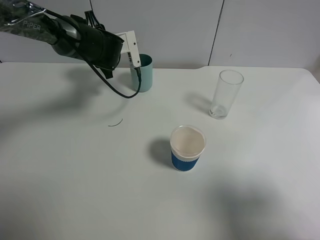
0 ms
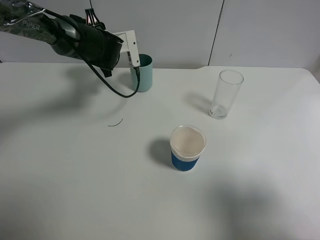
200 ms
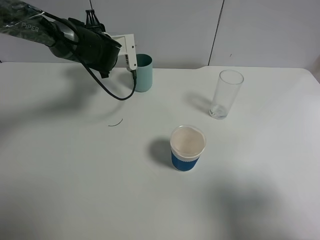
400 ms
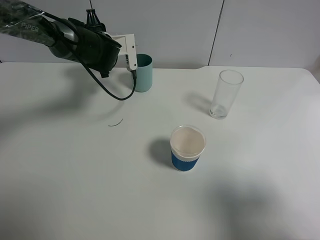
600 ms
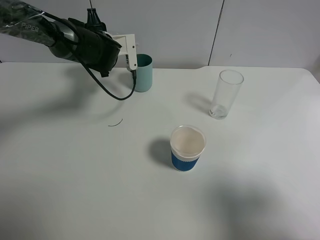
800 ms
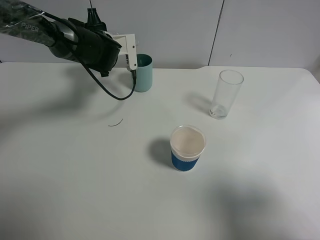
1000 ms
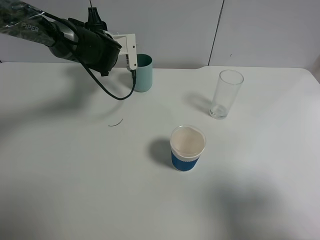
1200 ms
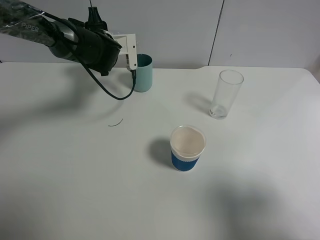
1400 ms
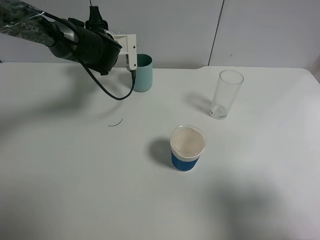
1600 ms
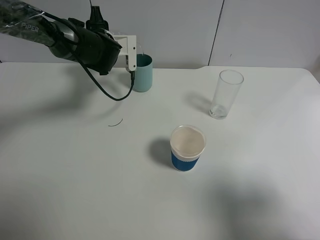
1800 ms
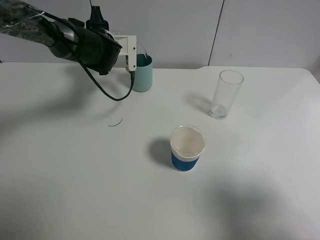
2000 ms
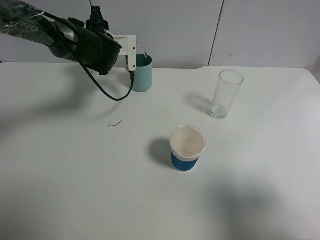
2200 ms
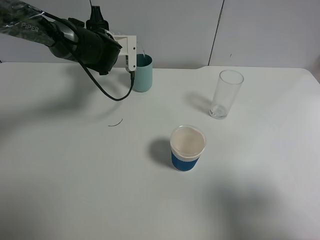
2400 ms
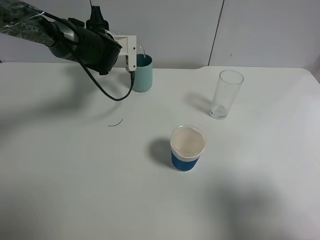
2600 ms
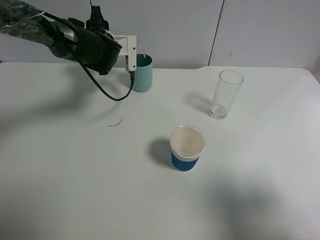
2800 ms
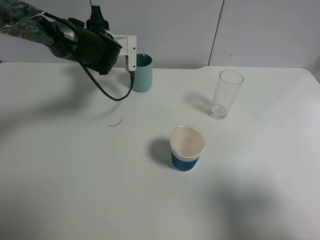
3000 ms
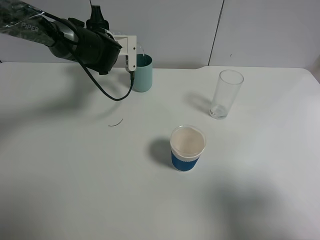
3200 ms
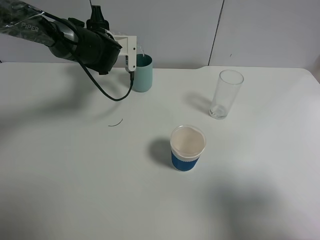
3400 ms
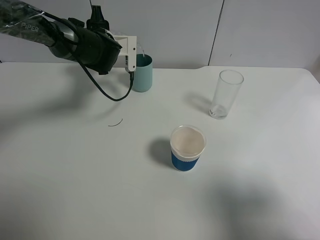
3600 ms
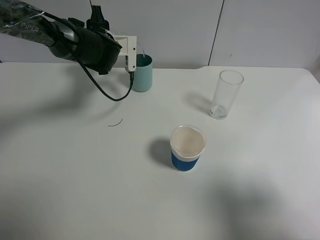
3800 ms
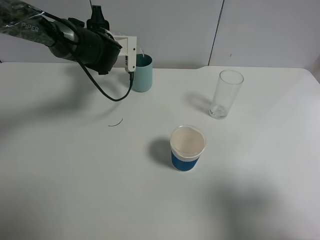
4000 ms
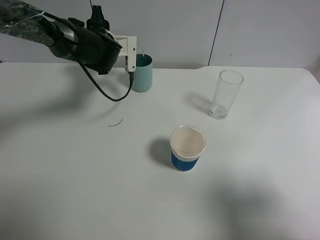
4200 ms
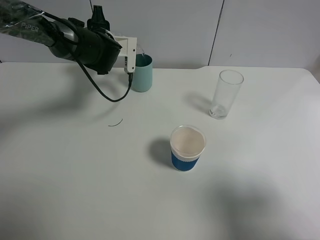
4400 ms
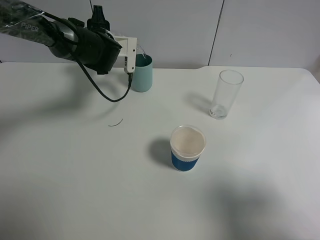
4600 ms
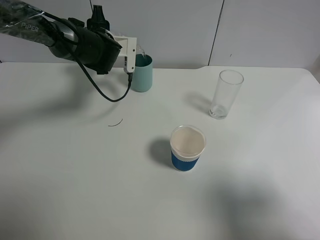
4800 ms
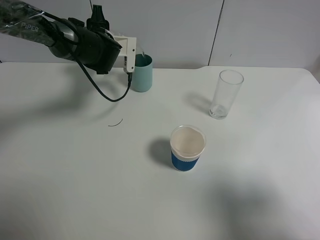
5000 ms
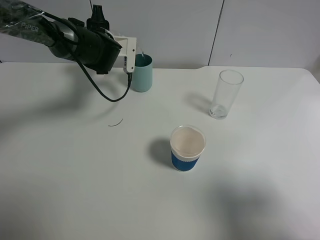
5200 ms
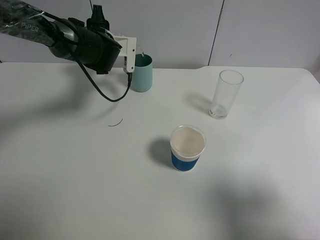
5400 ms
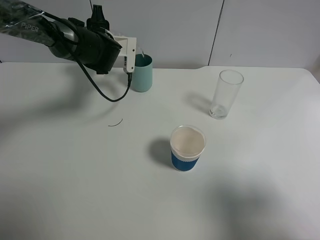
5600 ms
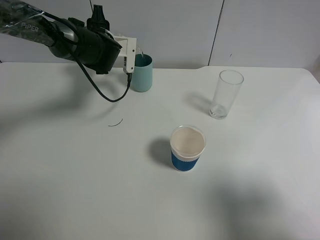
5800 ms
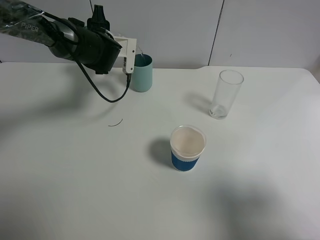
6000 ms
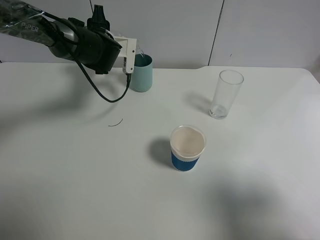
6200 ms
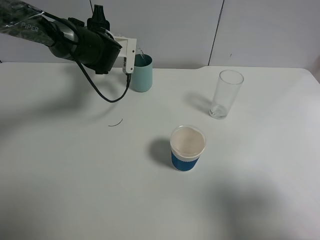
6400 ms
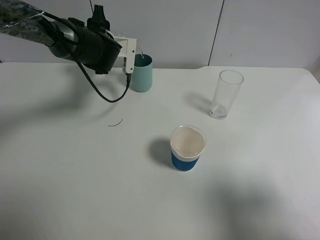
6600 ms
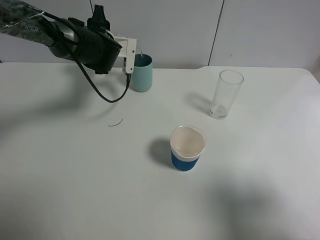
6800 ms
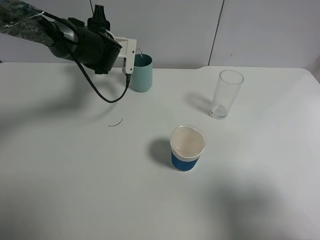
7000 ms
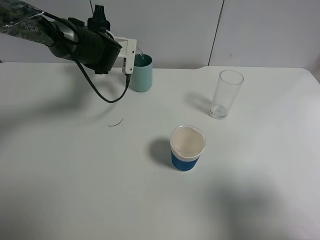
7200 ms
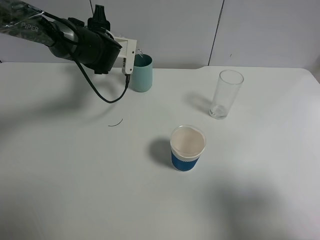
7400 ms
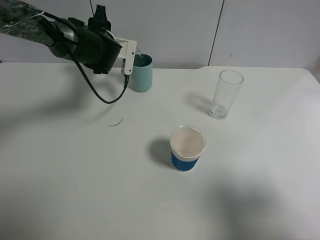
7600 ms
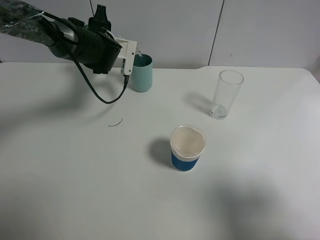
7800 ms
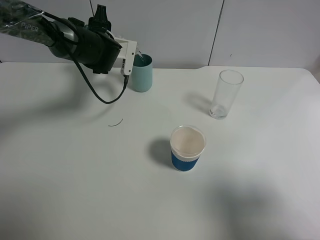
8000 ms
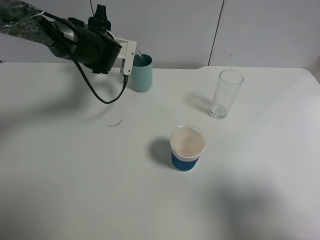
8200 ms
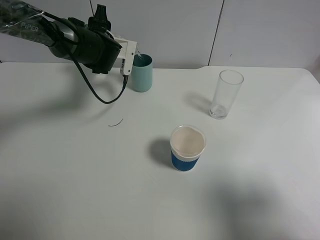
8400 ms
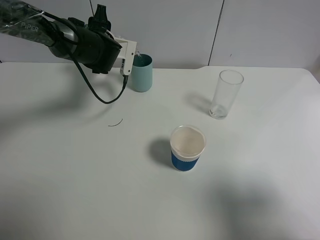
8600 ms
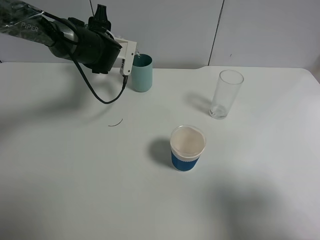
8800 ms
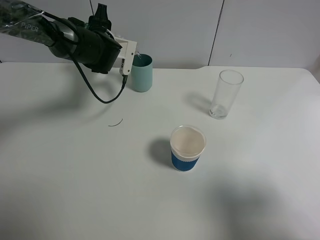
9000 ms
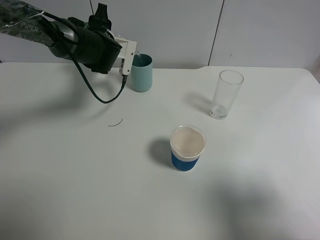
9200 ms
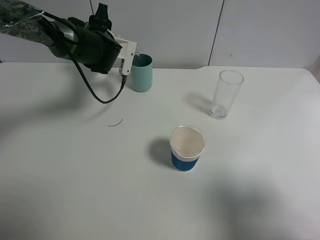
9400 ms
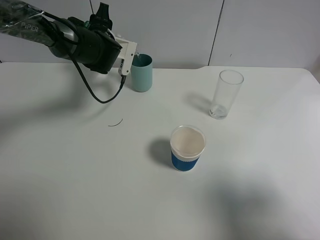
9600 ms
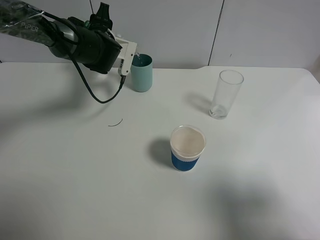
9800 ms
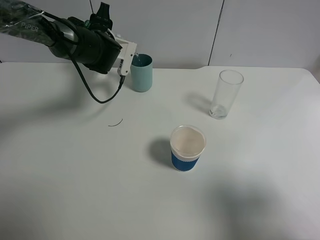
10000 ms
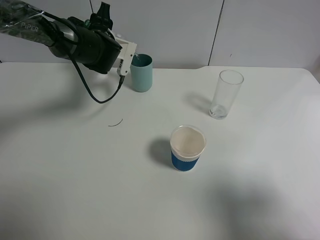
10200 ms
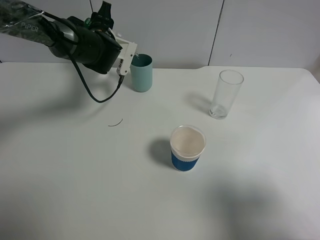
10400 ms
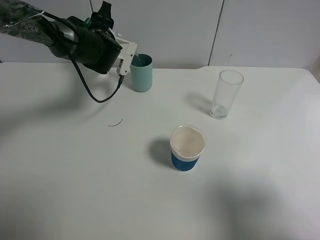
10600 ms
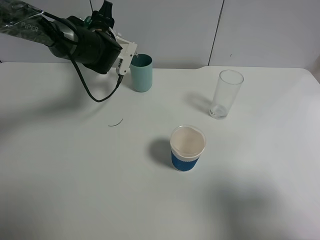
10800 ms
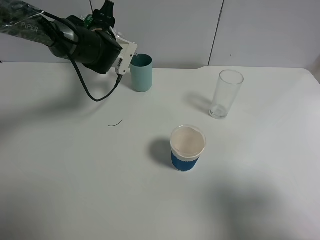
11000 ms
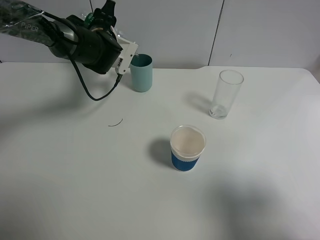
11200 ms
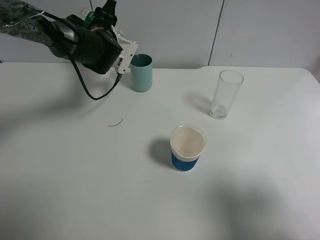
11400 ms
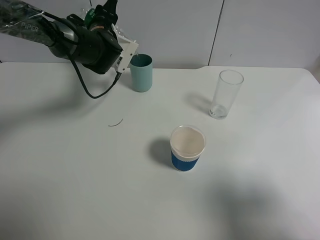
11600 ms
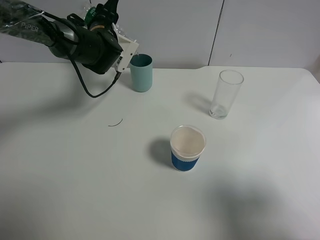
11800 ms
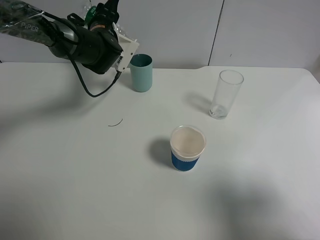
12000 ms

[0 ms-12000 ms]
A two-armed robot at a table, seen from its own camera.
Task of the whole recording: use a gripper to hold the bottle of the drink and pour it into a random cup.
0 ms to 1600 ms: The grippers move only a little.
1600 ms to 3000 ms: Neither gripper changes place.
3000 ms to 4400 ms: Neither gripper changes place.
4400 ms to 6000 ms: Neither gripper changes place.
6000 ms to 7600 ms: Neither gripper changes place.
7600 ms to 9000 ms: Both grippers stay put.
9000 ms to 12000 ms: The grippers make only small movements.

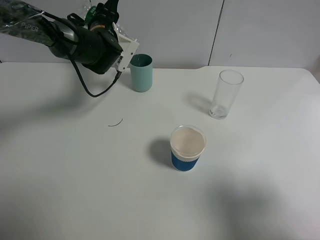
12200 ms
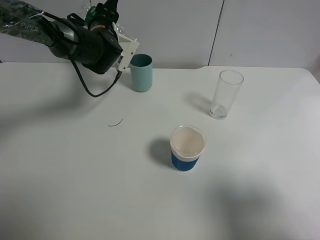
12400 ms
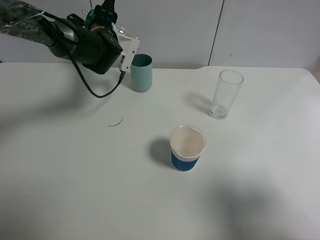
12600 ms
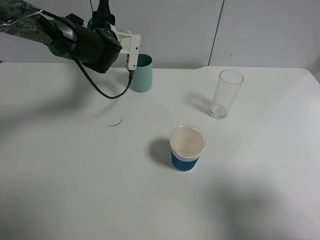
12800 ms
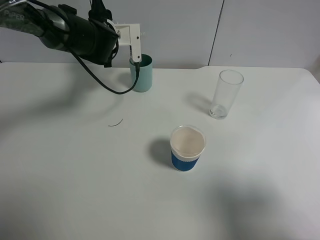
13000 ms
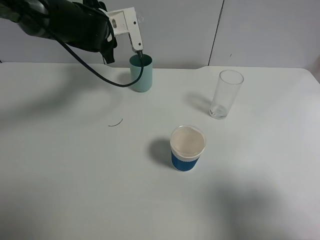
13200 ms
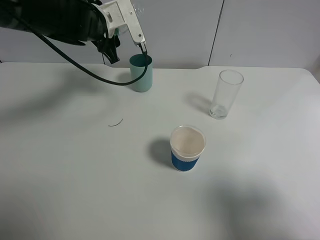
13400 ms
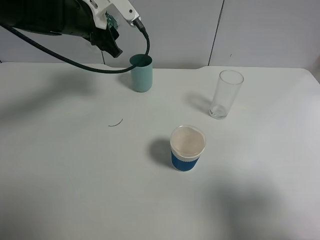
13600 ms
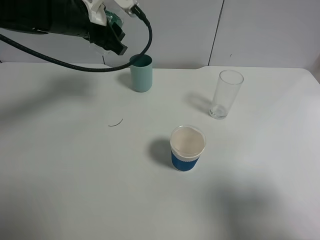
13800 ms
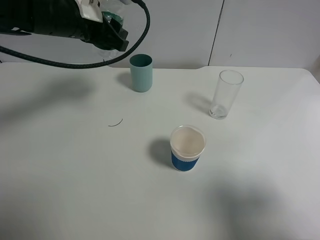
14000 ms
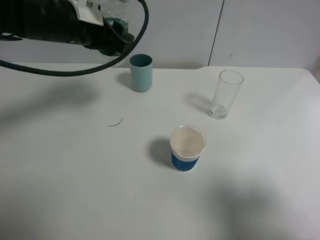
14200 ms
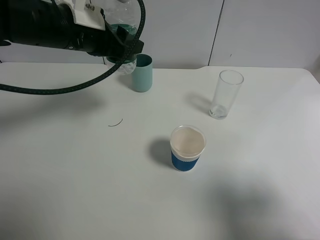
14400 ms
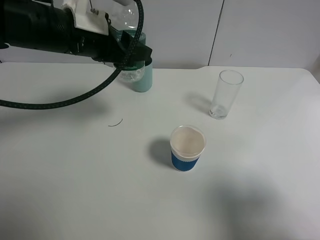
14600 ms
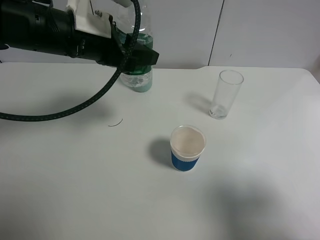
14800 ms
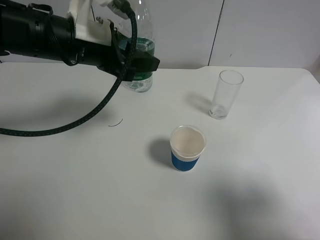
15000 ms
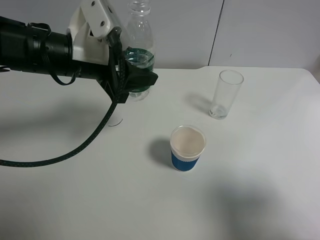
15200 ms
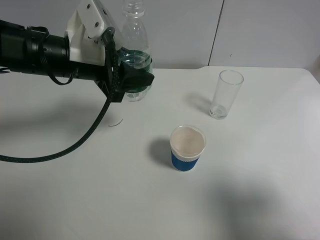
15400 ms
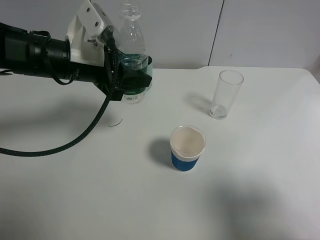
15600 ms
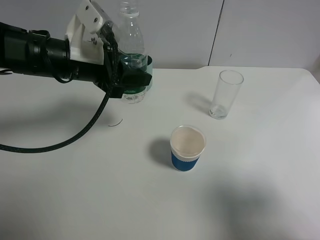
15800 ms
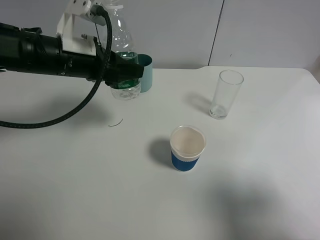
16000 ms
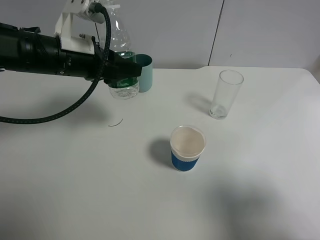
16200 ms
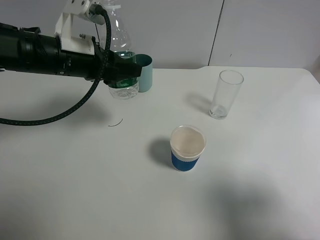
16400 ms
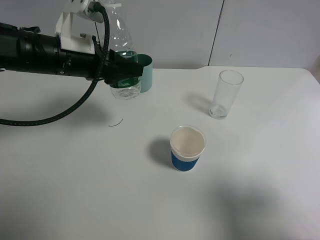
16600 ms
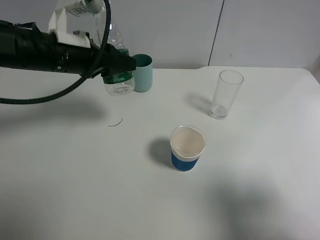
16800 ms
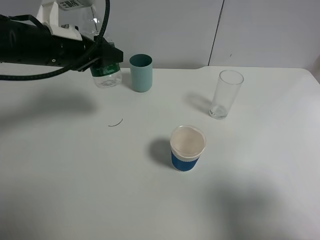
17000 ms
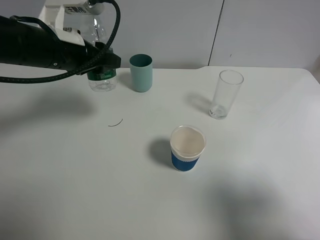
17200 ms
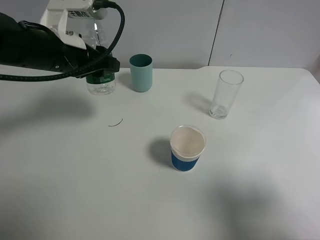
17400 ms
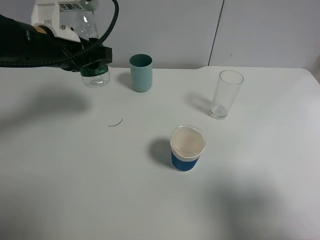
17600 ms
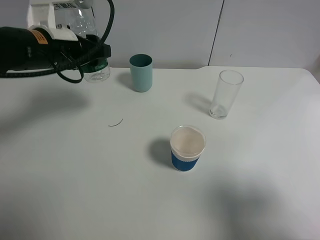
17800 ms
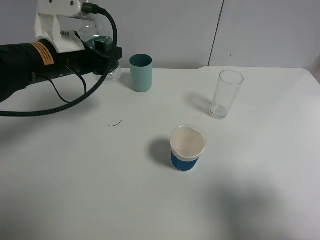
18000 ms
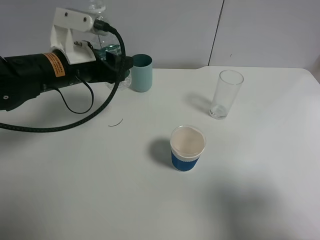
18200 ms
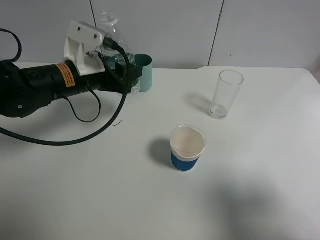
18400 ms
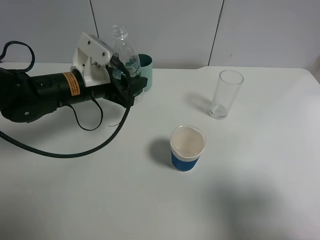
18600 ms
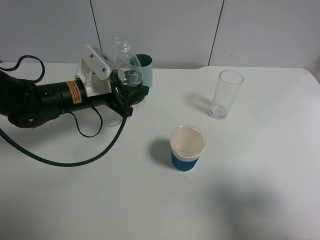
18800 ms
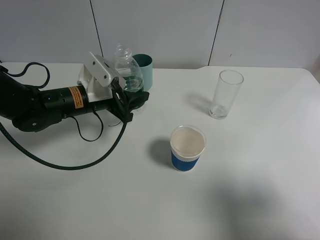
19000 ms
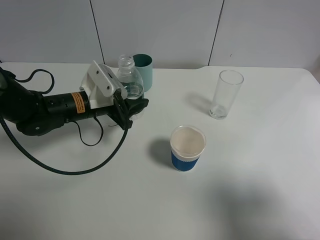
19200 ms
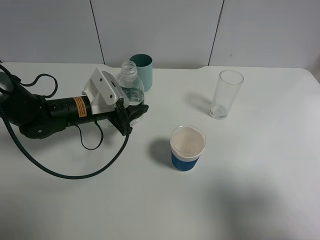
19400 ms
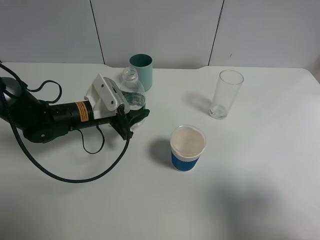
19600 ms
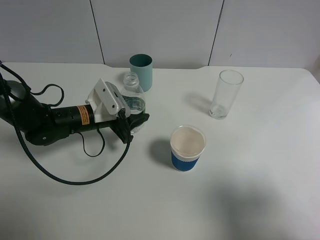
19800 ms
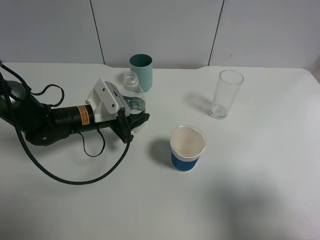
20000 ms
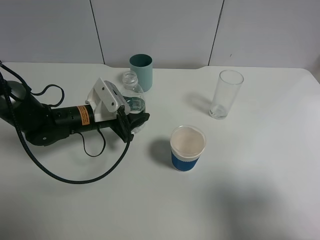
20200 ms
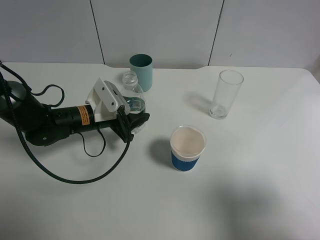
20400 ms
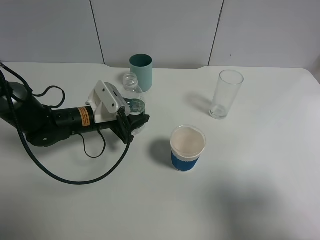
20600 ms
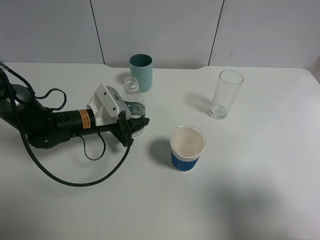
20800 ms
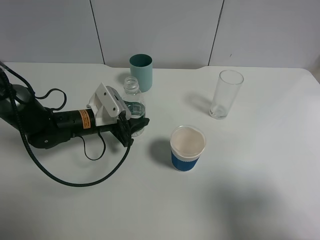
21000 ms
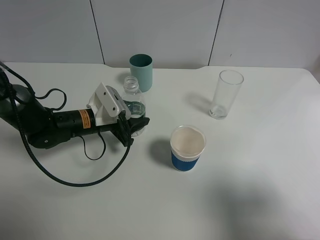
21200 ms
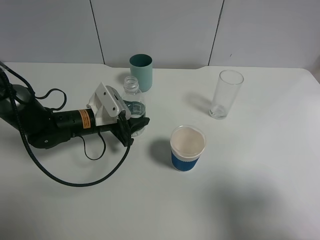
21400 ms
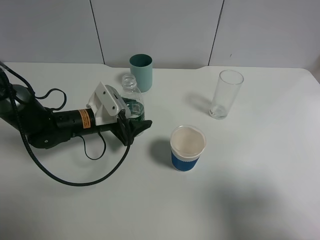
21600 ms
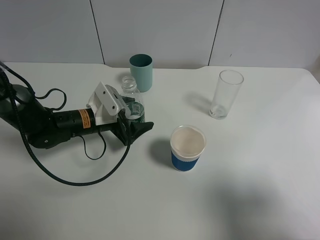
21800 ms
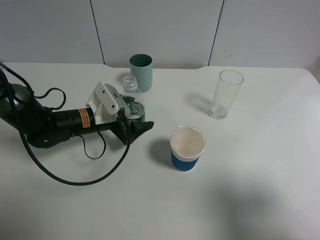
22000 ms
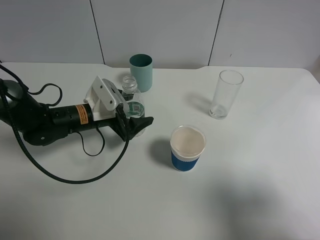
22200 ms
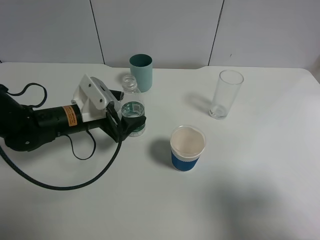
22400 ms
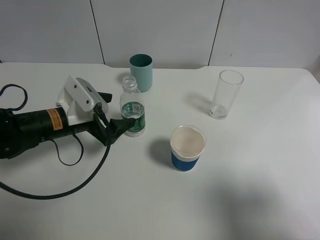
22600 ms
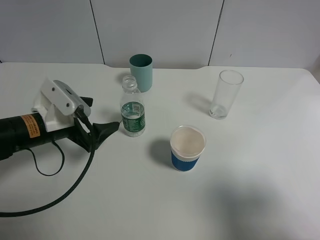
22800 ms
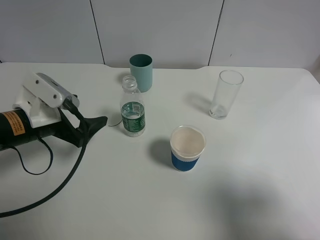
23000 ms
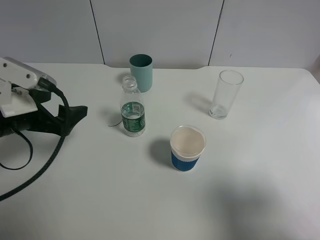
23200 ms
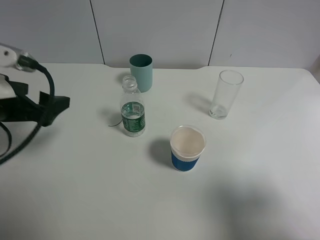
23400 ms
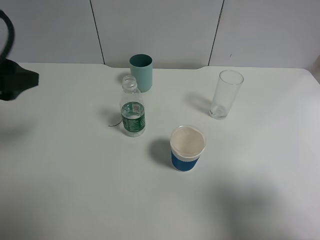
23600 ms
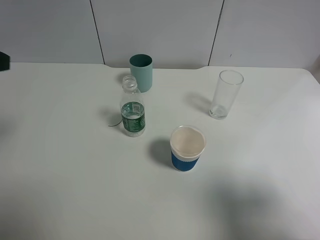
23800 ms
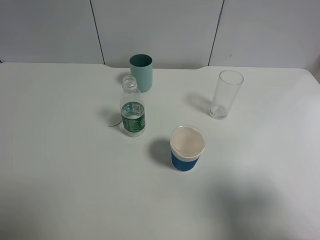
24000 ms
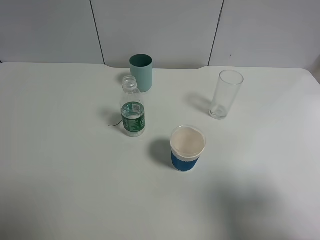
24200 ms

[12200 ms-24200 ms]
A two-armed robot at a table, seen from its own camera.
Task of the whole recording: use a gripper to hold the bottle of the drink and pour it into a random cup.
Step, 13600 ms to 22200 ms: Place the mineral water bottle on the table with the left gripper.
12200 ms to 13800 ms: The left gripper moves backward and upward, about 10 cm.
13800 ms to 15200 ms: The left gripper moves backward, some 10 cm.
18200 ms to 19800 ms: The left gripper goes about 10 cm downward.
19800 ms to 21200 ms: Both grippers stay about where they are.
21200 ms to 22600 ms: The left gripper moves roughly 5 cm, and opens.
22600 ms to 24200 ms: The left gripper is displaced upward, backward and to the left by some 30 cm.
